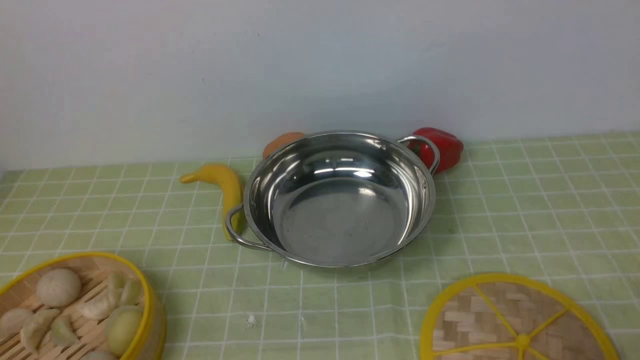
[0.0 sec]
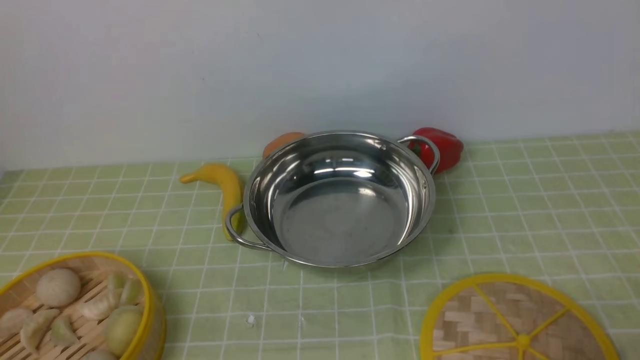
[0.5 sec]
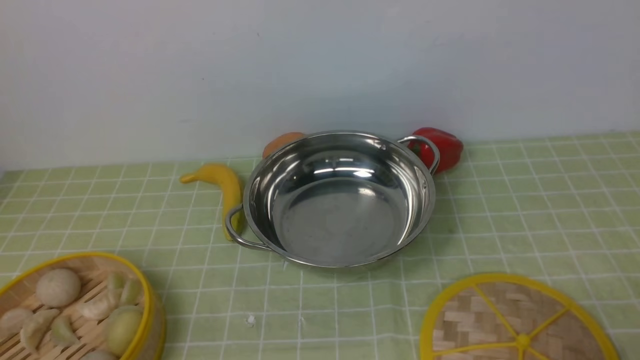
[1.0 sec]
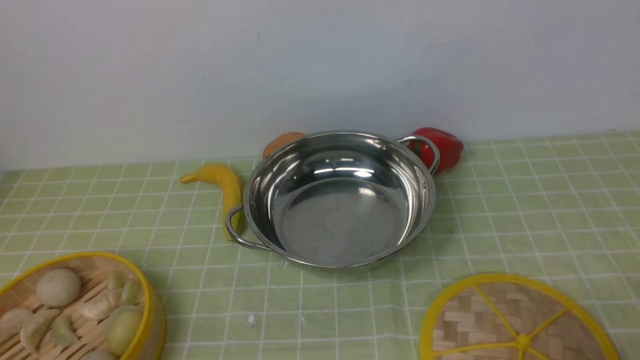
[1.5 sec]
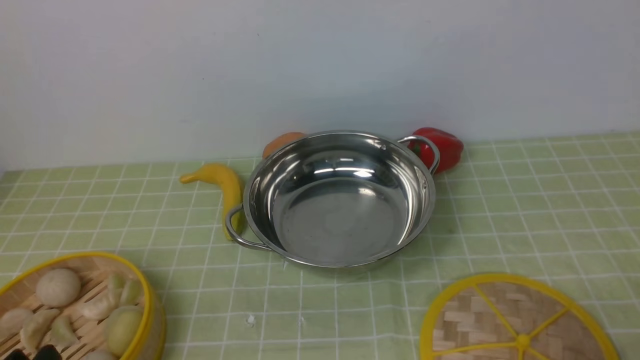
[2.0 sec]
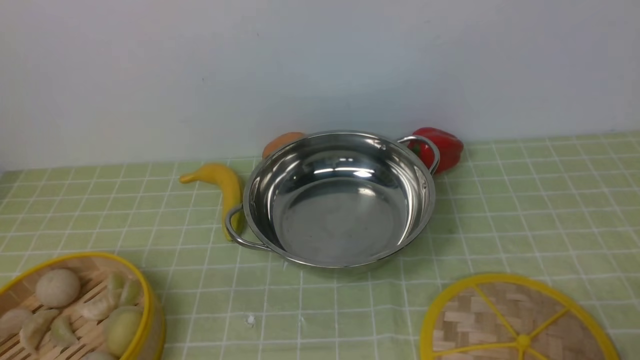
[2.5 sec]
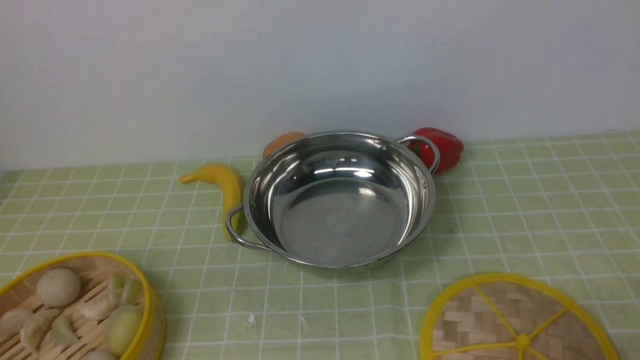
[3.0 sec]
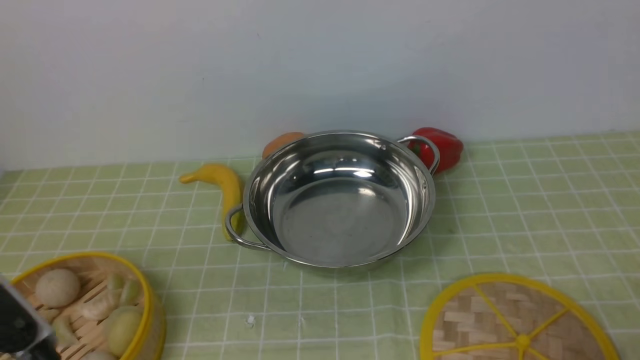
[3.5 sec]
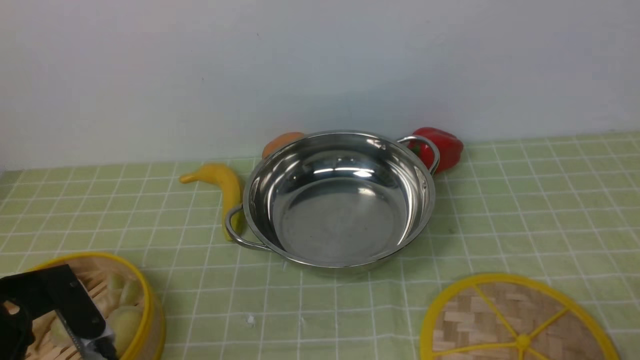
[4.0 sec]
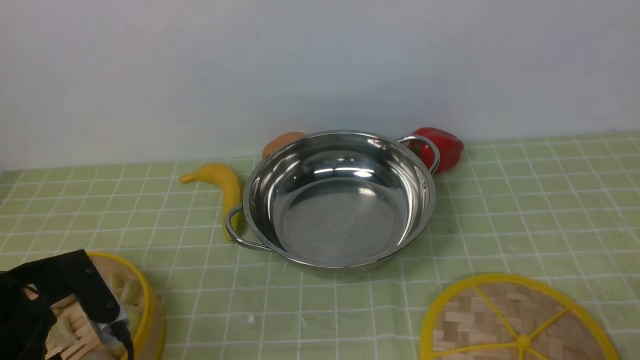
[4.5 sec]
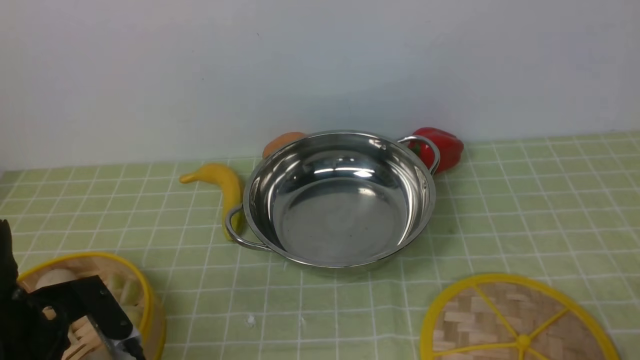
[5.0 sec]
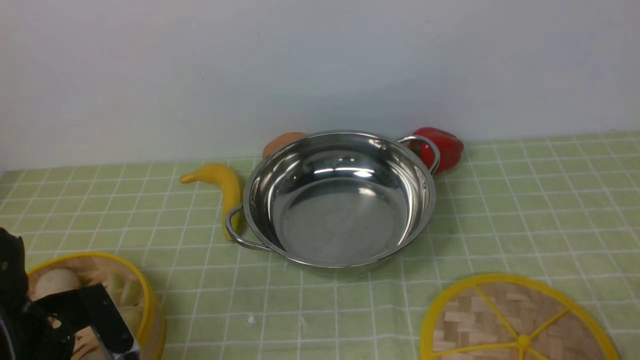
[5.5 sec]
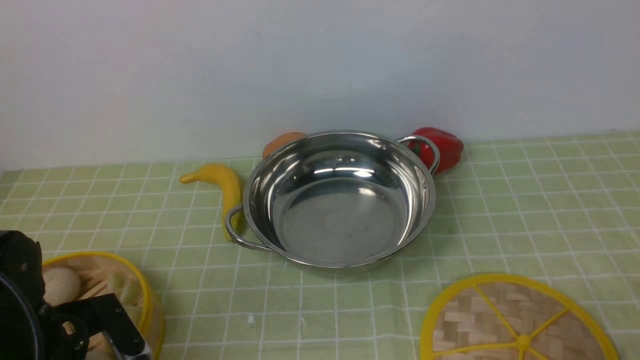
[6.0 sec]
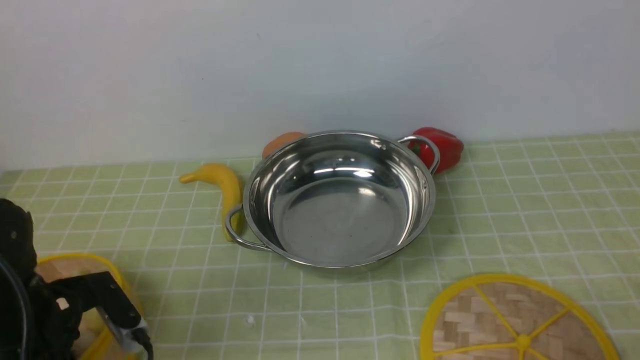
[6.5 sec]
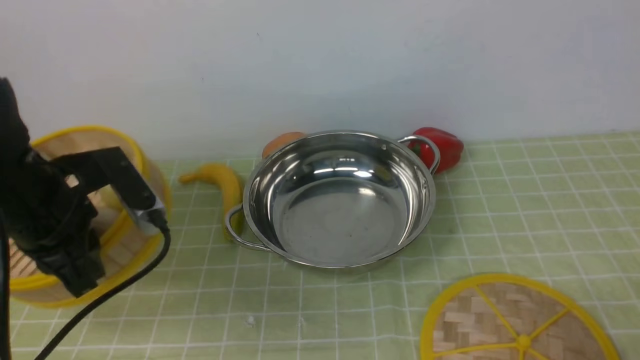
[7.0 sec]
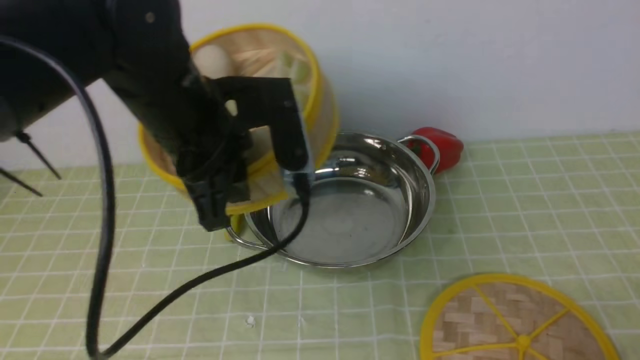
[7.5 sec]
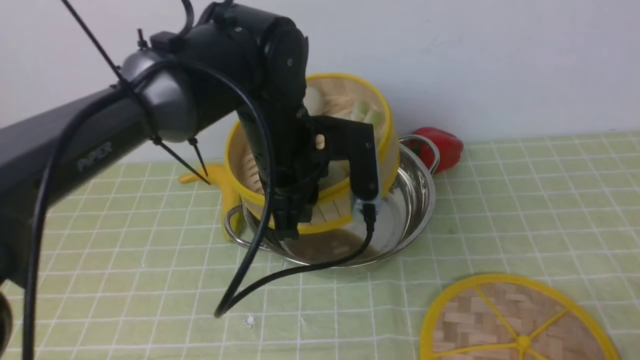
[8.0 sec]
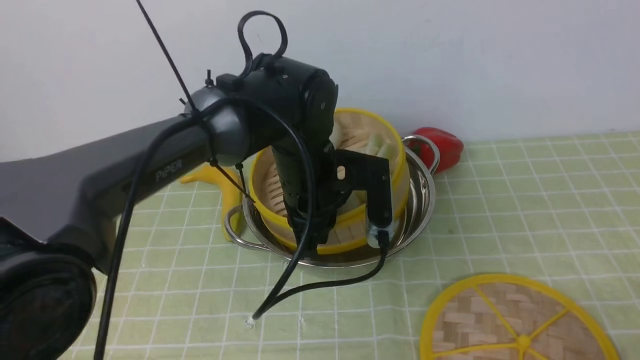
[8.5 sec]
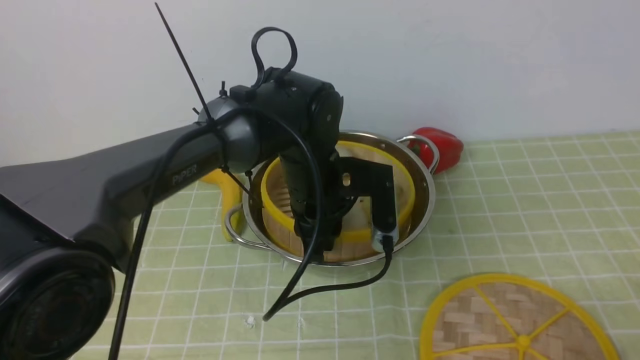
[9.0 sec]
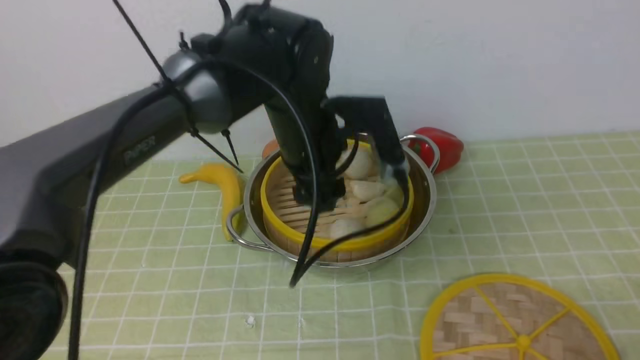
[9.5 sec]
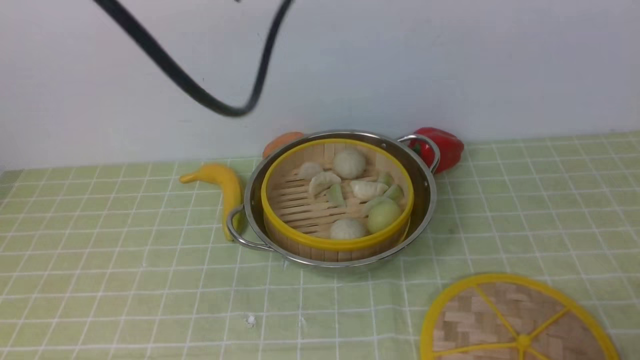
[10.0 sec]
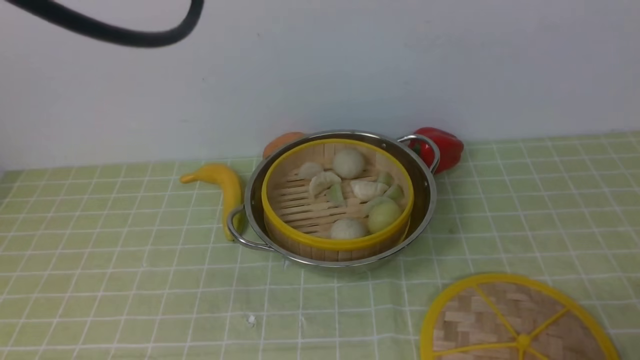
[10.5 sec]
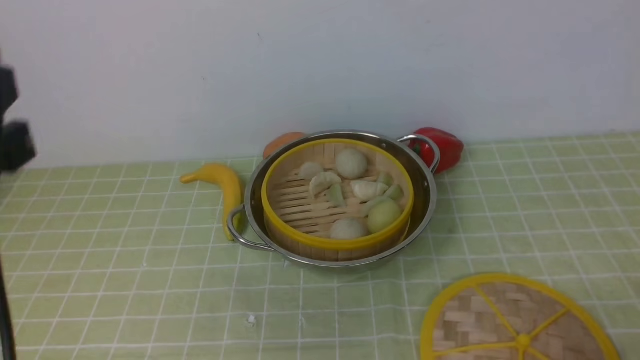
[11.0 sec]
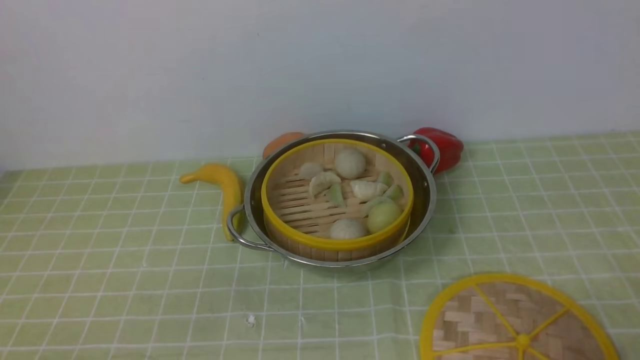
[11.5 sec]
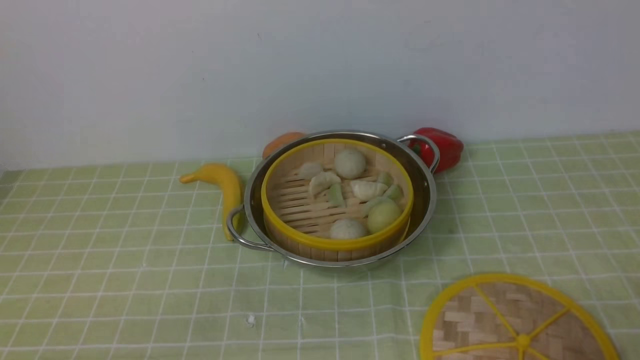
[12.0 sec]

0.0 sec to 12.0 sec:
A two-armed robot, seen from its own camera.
Task of the whole recording: place the steamer in the pot on the green tablecloth, and put the lid on the steamer.
Step, 0.0 sec to 6.5 sec: use the left arm to lift the steamer closest to it.
Step, 7.0 sec to 9.0 sec: use the left arm to put the steamer into the iron steamer pot in the middle.
2.0 sec to 4.0 sec: The left gripper moves forward, approximately 15 cm.
4.0 sec to 6.0 sec: The left gripper goes about 10 cm downward, and opens and closes again.
6.0 sec to 8.0 sec: The left gripper travels to the right, forward and upward by some 30 cm, and closes its fingers.
8.0 sec to 10.0 sec: The left gripper heads upward, covering roughly 20 cm, and opens and closes again.
10.0 sec to 12.0 sec: The left gripper travels downward, backward and to the left by approximately 40 cm.

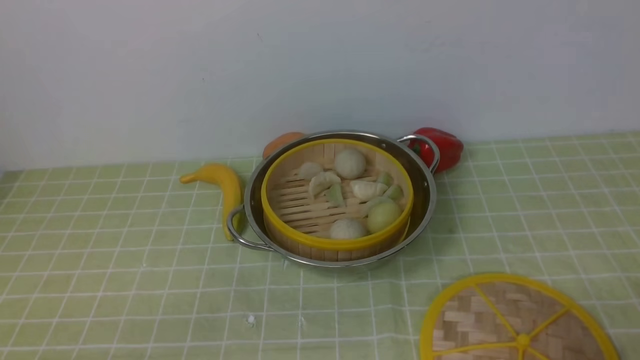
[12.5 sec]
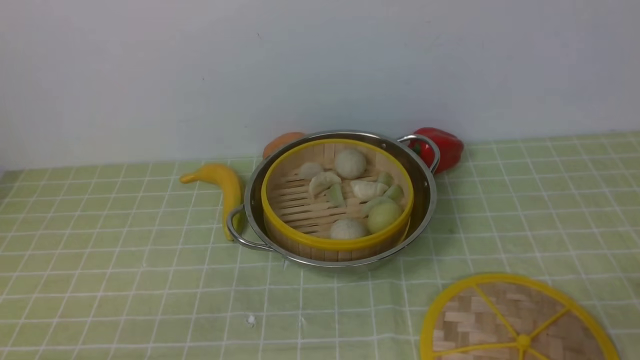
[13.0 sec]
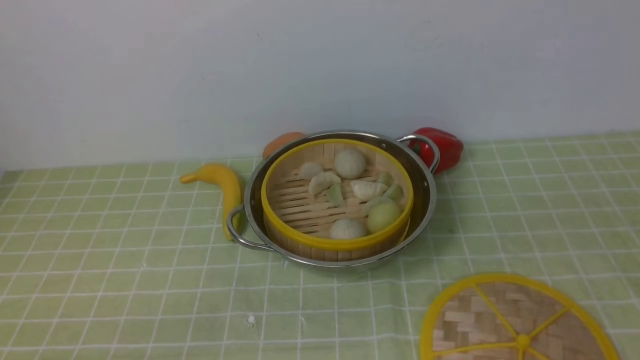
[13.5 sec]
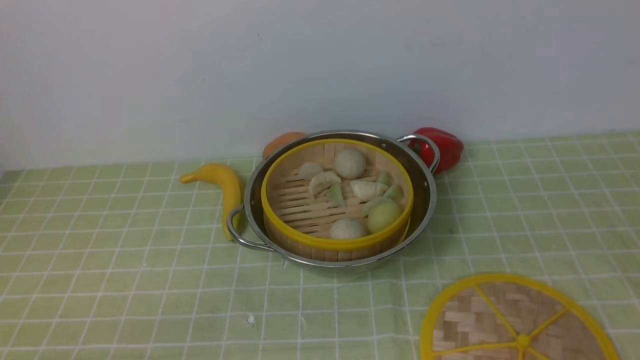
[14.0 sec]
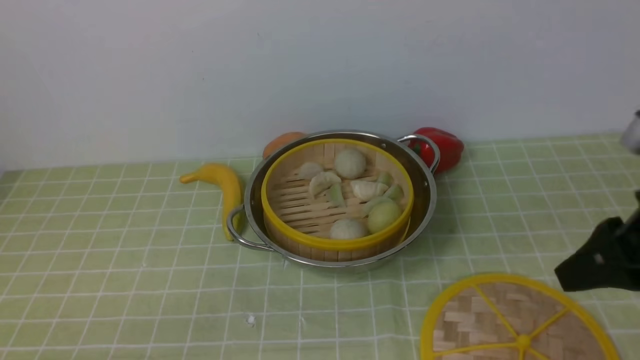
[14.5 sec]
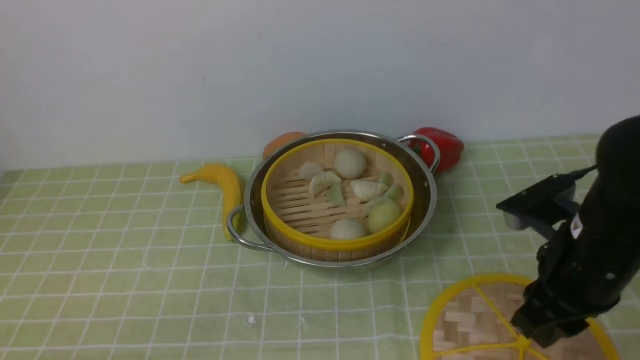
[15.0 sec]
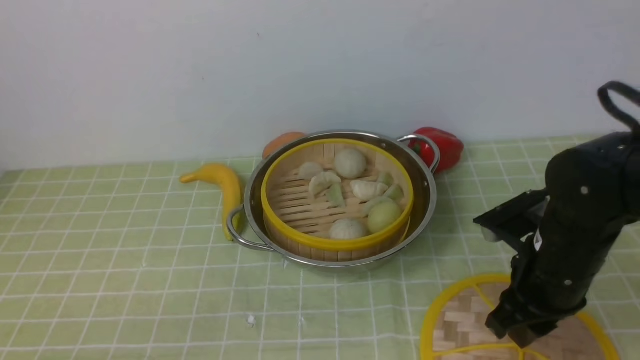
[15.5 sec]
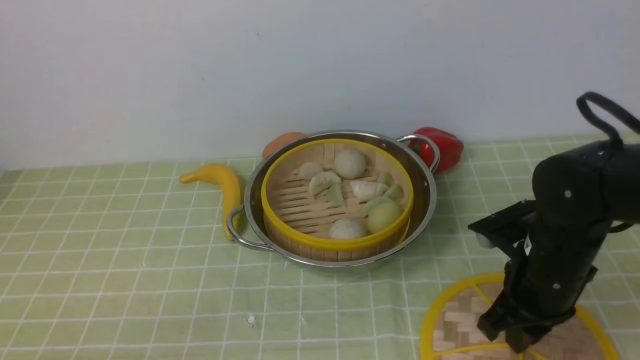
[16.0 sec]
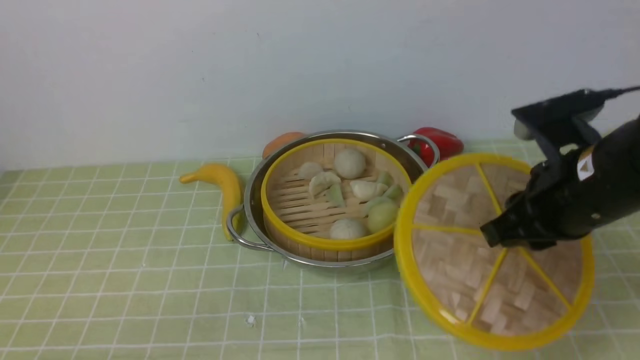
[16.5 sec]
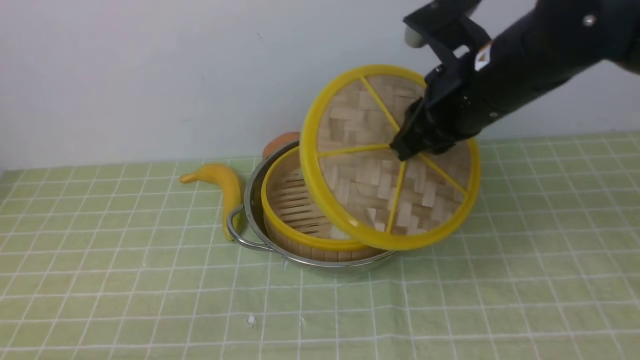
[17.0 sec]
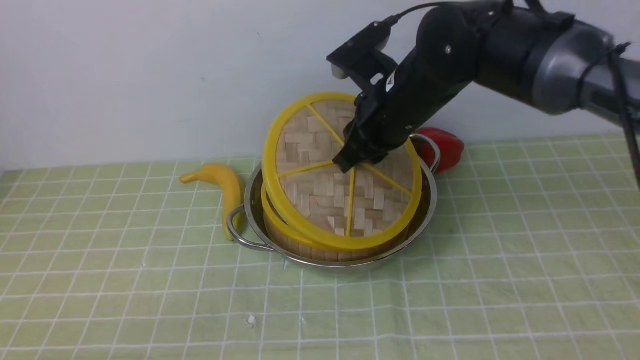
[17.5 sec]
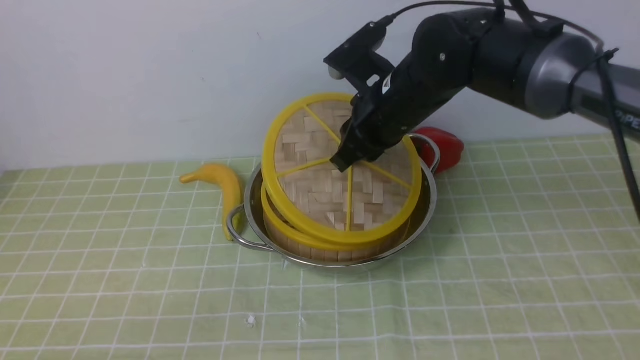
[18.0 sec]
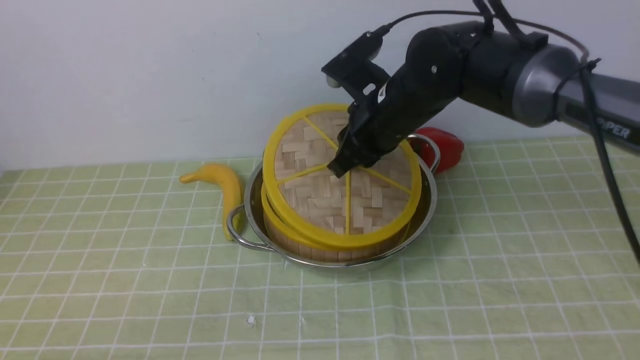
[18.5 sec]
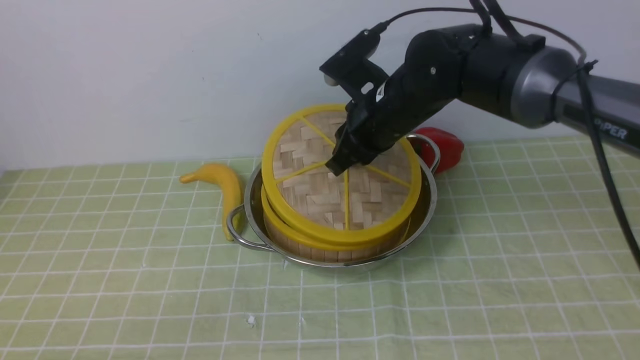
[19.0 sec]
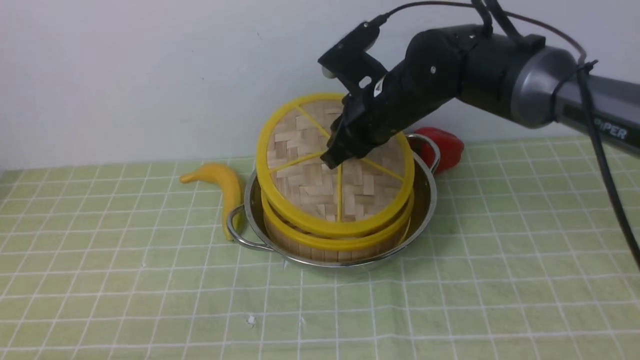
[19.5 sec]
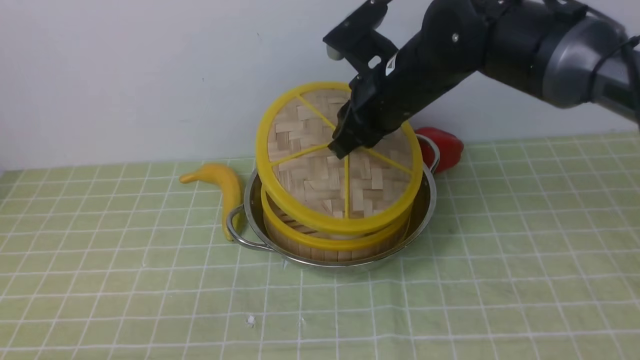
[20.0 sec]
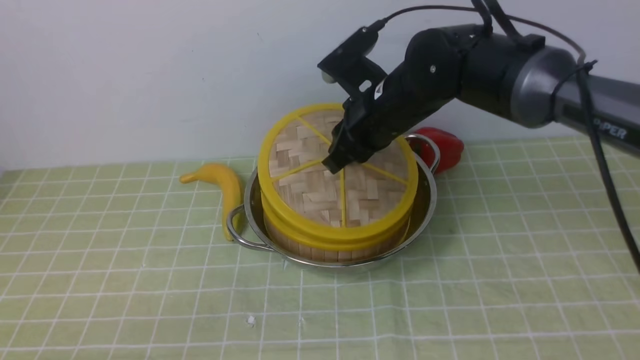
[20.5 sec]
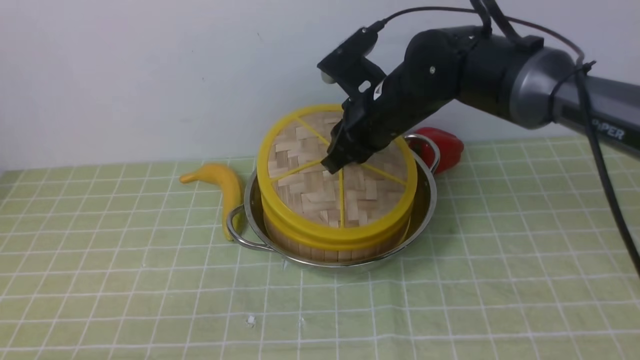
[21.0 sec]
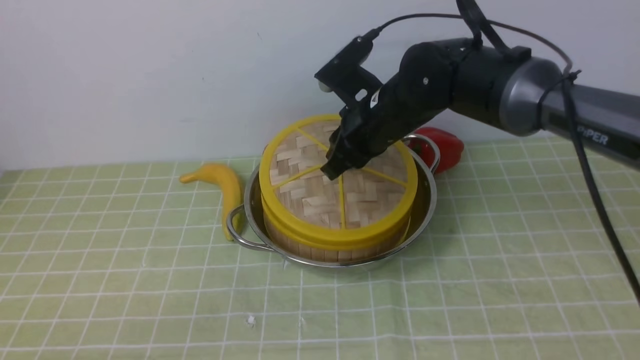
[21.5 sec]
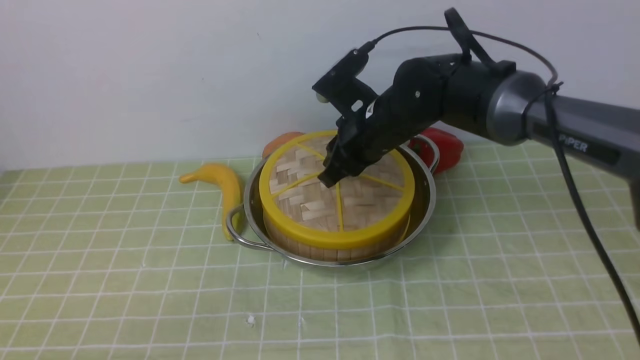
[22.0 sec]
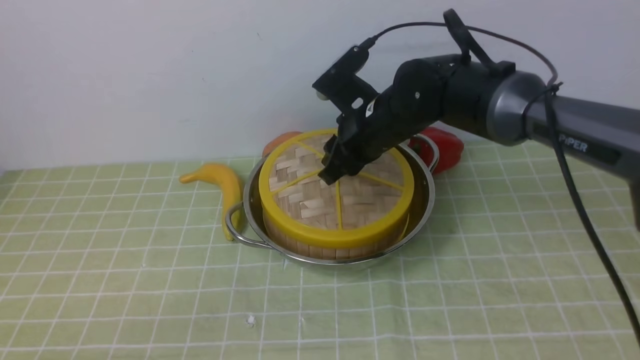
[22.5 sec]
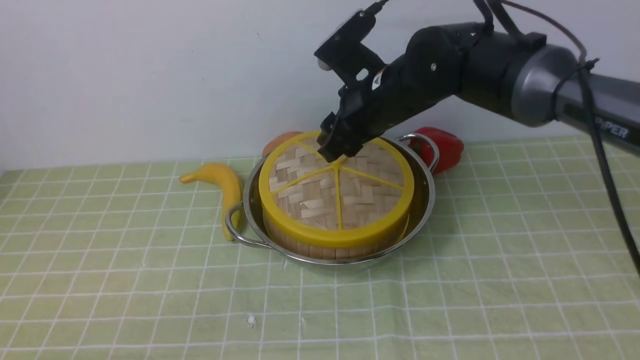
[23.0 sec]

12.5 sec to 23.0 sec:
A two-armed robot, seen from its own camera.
Task of the whole recording: place the steamer in the pot on the green tablecloth, and put the lid on the steamer.
Step, 12.5 sec to 16.5 sec: use the right arm to lift the lid of the steamer.
12.5 sec to 14.5 sec: The right gripper heads forward, upward and to the left, covering some 20 cm.
14.5 sec to 16.5 sec: The right gripper moves to the left and forward, approximately 10 cm, and goes downward and returns, approximately 10 cm each way.
16.5 sec to 19.0 sec: The right gripper travels forward and to the left by about 20 cm.
19.0 sec to 21.0 sec: There are only small adjustments of the grippers.
21.0 sec to 23.0 sec: The right gripper opens up.
